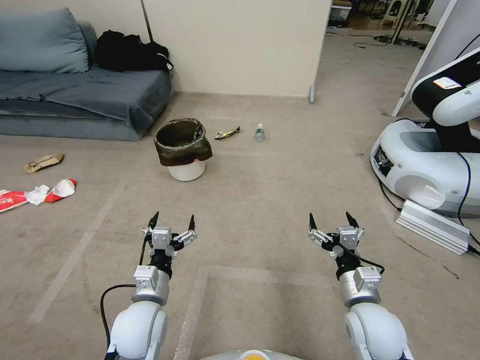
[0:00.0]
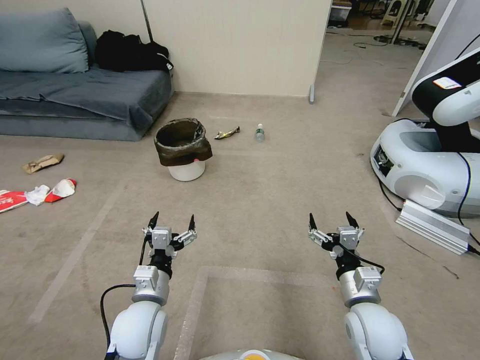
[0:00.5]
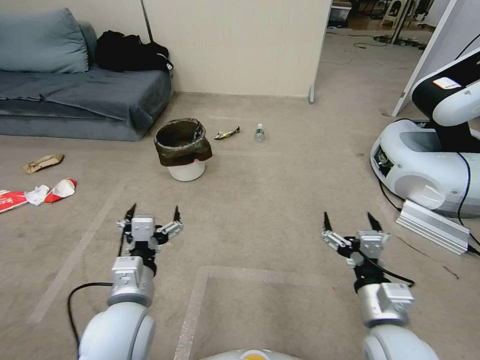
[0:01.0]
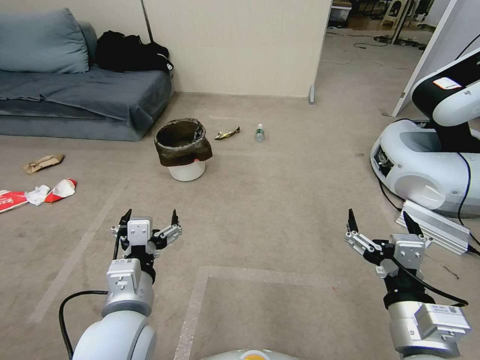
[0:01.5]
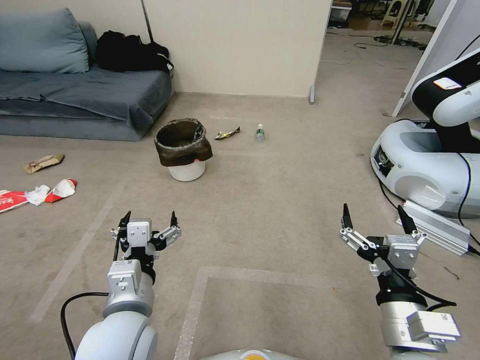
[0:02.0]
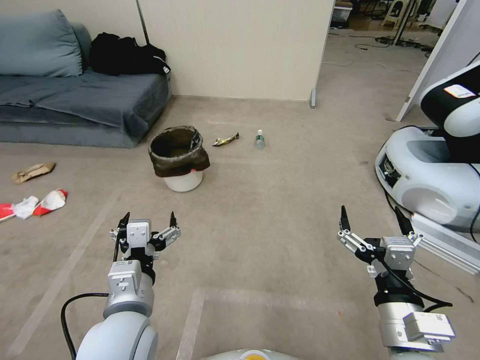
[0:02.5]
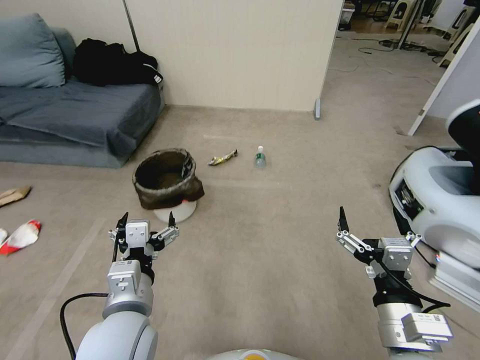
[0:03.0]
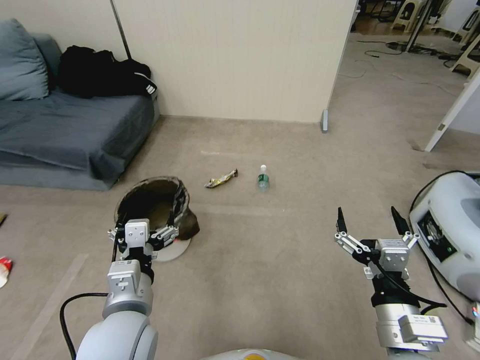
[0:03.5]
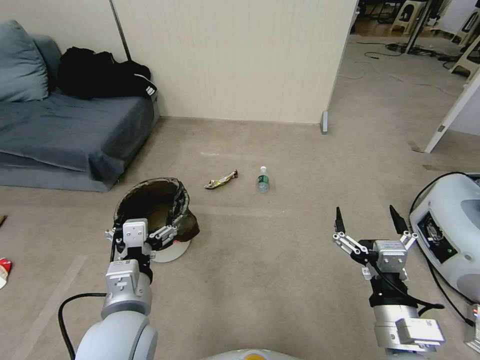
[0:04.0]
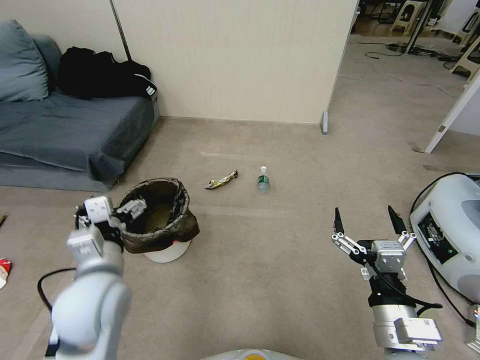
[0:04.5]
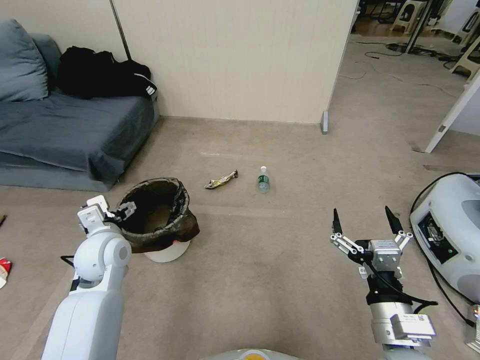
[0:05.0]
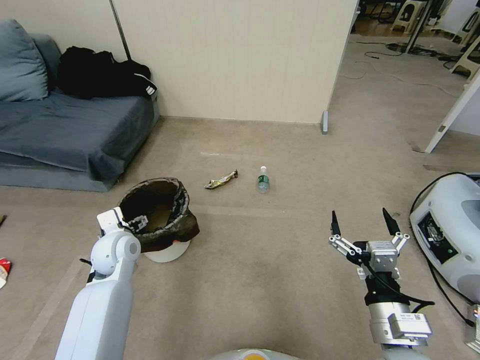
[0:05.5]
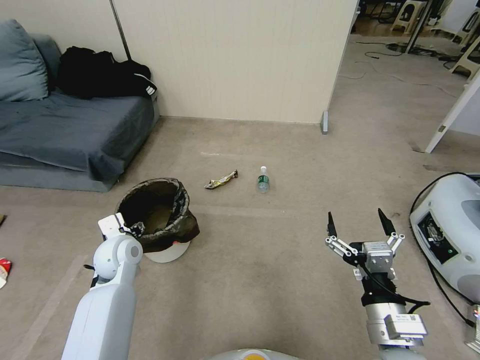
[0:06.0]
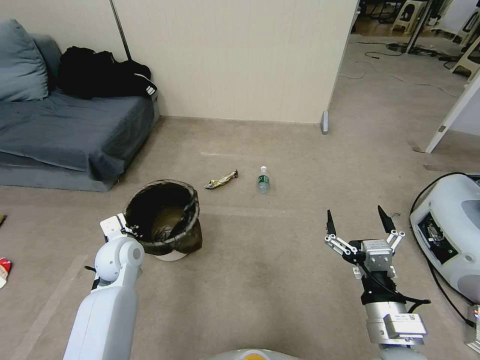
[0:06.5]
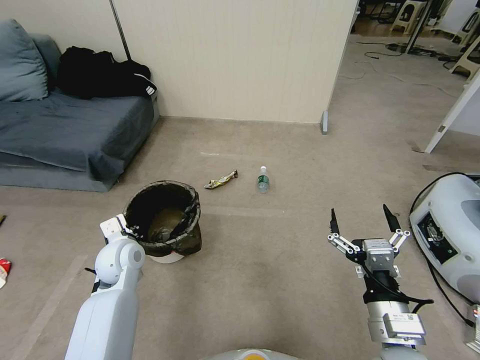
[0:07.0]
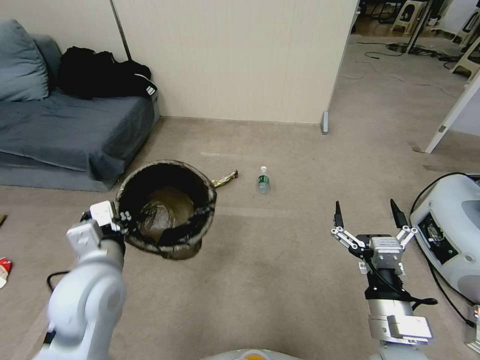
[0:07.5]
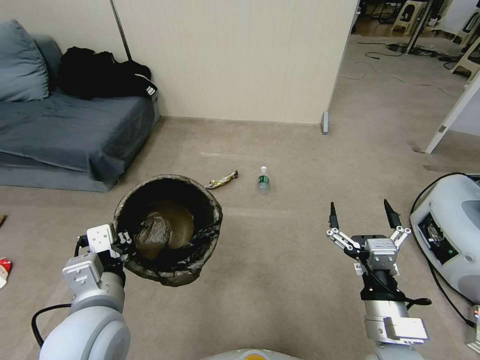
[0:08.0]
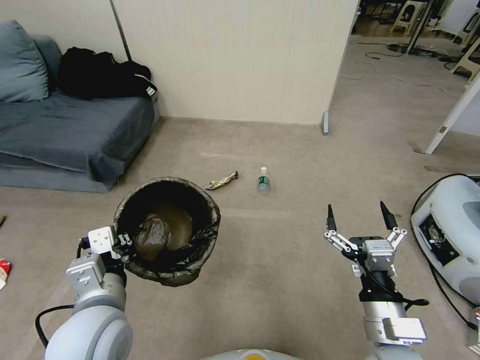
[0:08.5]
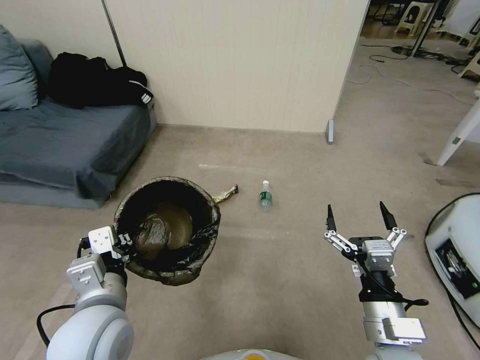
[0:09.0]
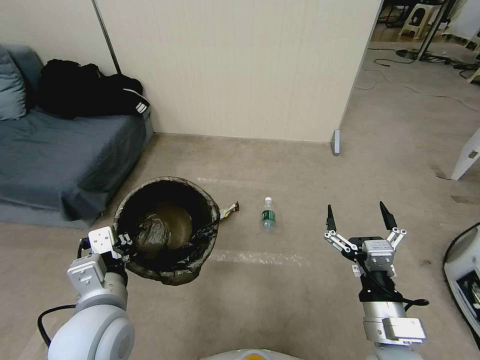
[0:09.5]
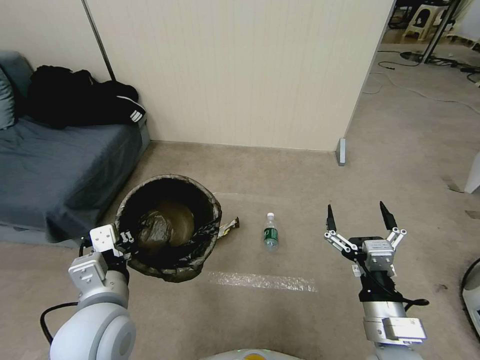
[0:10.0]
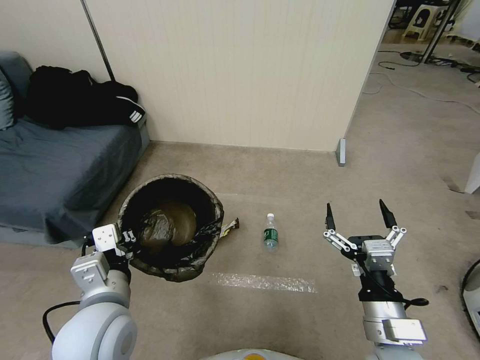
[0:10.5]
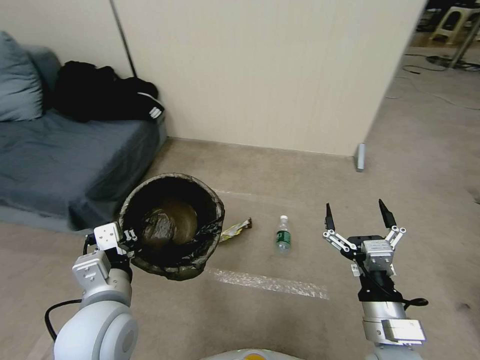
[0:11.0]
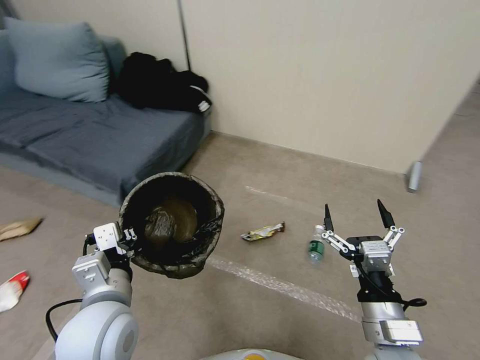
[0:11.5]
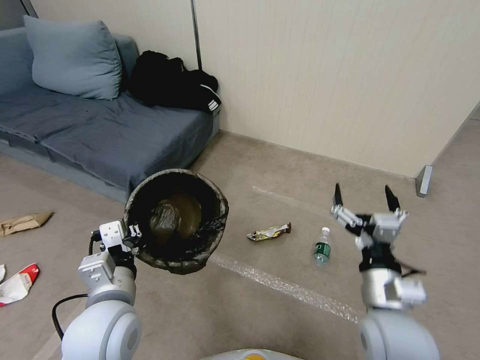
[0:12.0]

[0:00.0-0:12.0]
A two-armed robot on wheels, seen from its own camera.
Task of the whole recording: Pick up the trash bin, then pick up the garbage from the floor and place it into the trash bin.
0:04.0 to 0:06.0: The left gripper shifts approximately 25 cm forward, to the left and downward.
0:06.0 to 0:08.0: The left gripper shifts roughly 25 cm backward, upward and to the right, and closes up.
0:10.0 to 0:12.0: The right gripper ends up about 5 cm from where it was.

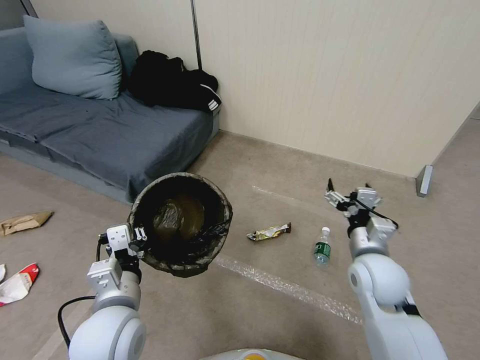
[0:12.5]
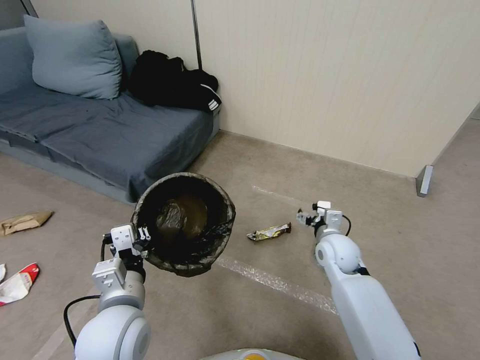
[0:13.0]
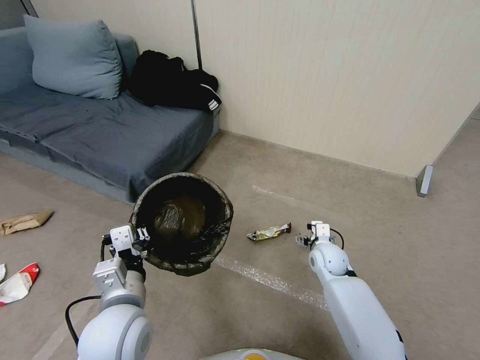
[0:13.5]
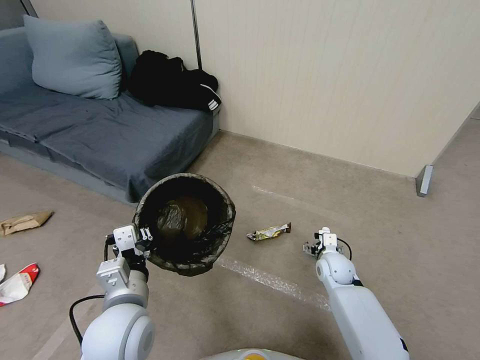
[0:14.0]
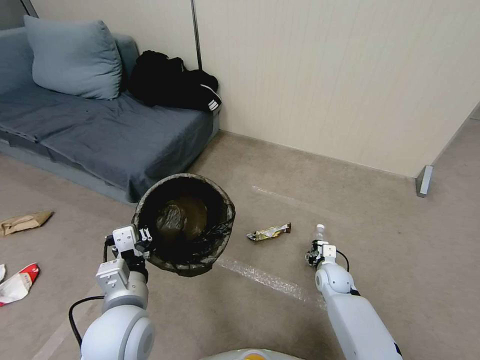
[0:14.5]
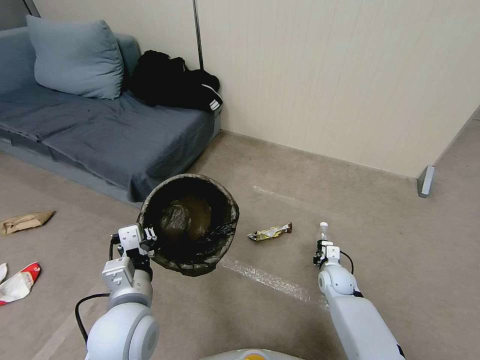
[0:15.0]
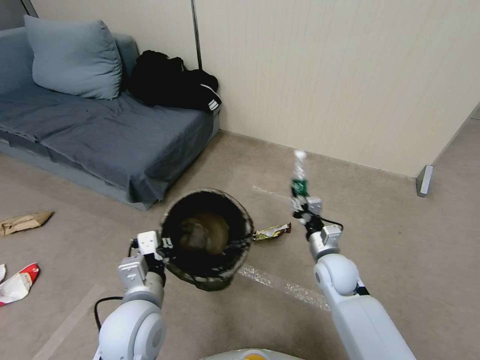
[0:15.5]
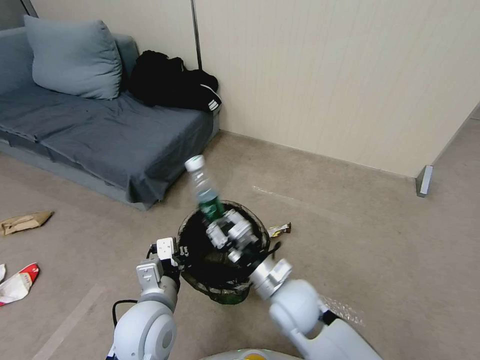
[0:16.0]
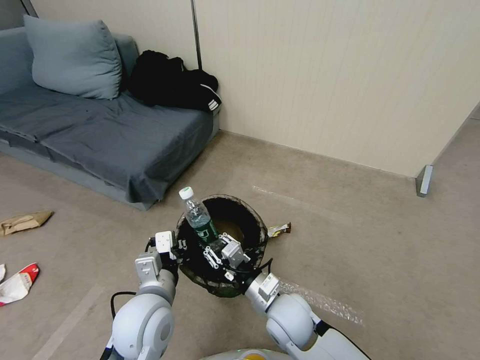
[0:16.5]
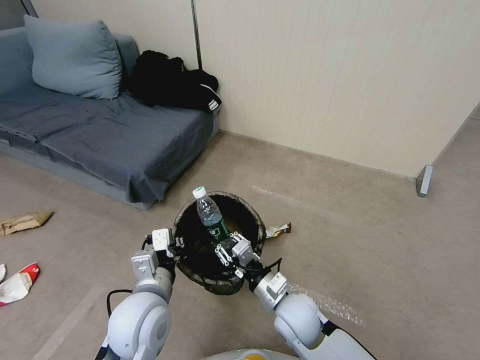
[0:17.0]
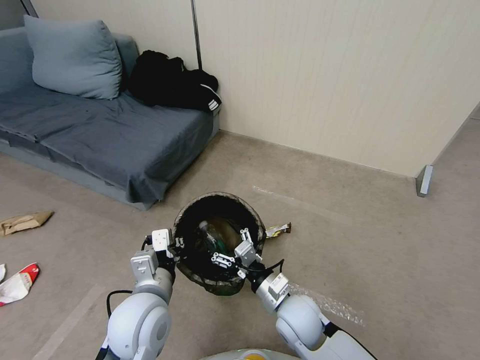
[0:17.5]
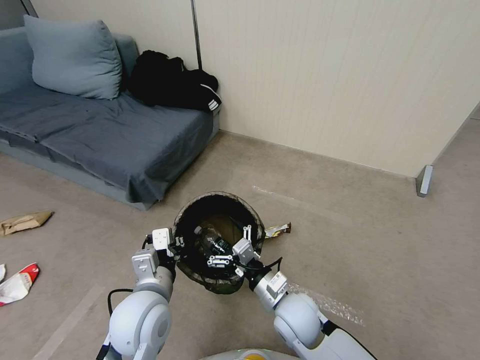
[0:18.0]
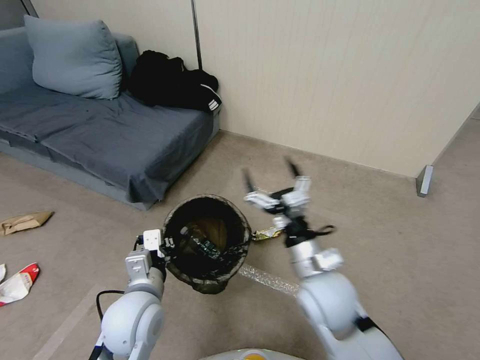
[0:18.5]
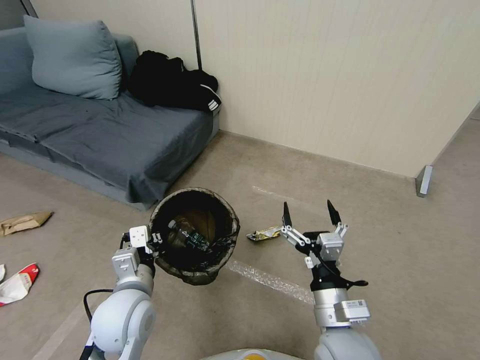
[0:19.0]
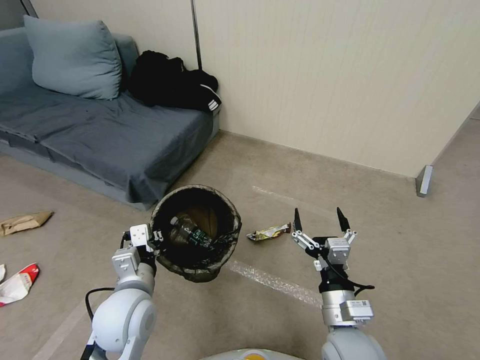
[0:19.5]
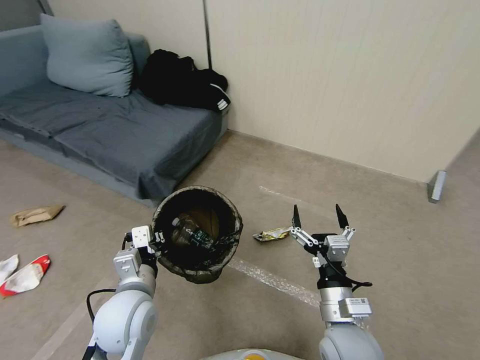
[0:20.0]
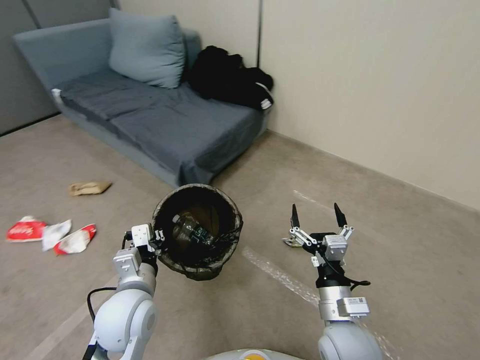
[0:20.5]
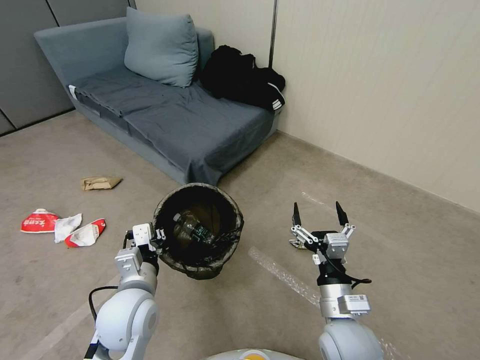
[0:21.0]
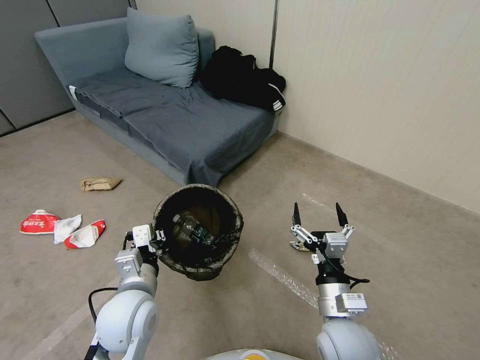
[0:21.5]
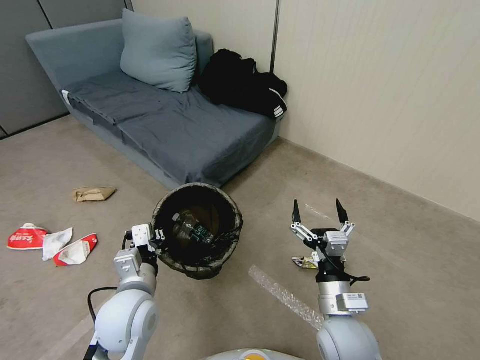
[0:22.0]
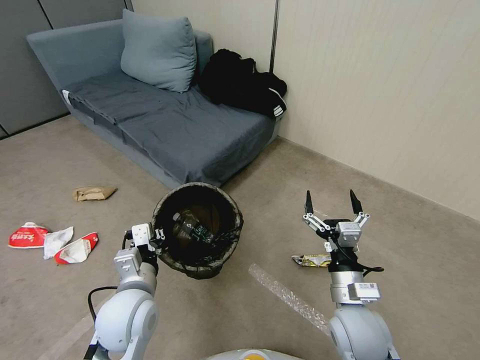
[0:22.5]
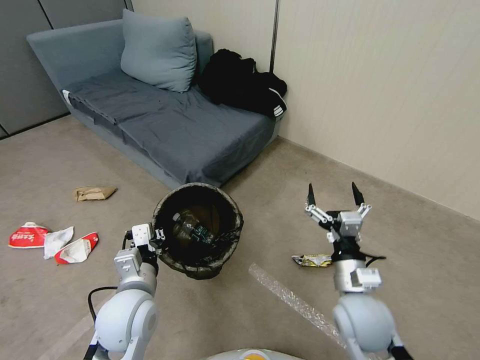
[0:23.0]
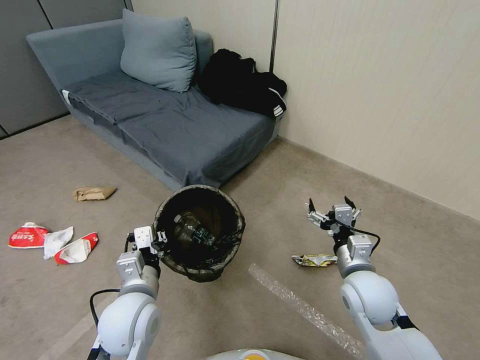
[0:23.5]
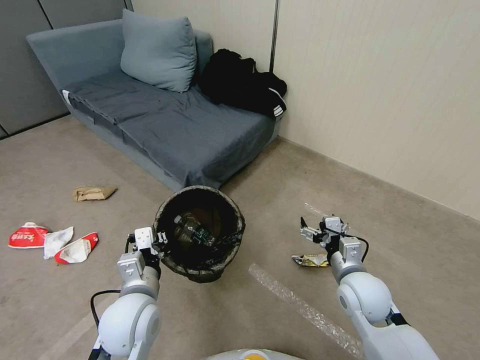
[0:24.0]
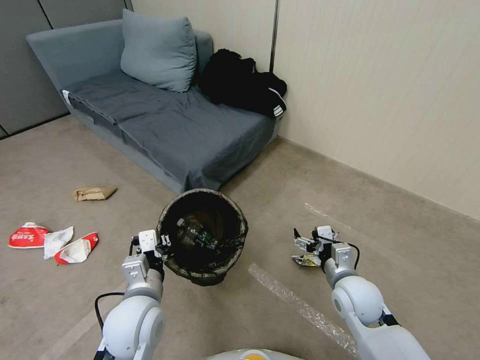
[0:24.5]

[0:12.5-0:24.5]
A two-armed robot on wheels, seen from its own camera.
Task of the whole recording: Pick up the trash bin, then pick up the garbage from the floor and place it into the trash bin.
0:12.5 to 0:14.5: The right gripper shifts approximately 20 cm downward.
0:14.5 to 0:16.5: The right gripper shifts approximately 25 cm to the left, upward and backward, and closes up.
0:16.5 to 0:18.5: The right gripper moves upward, some 10 cm, and opens.
0:18.5 to 0:20.5: The right gripper goes some 10 cm backward and downward.
0:20.5 to 0:22.5: The grippers make only small movements.
0:22.5 to 0:24.5: The right gripper heads forward, covering about 5 cm.

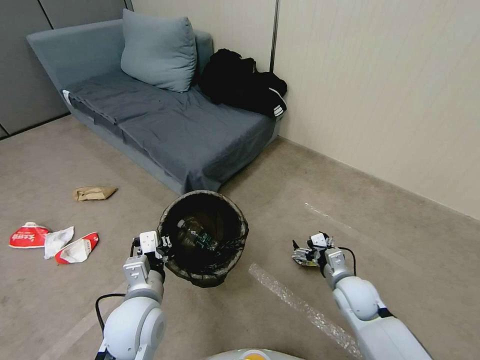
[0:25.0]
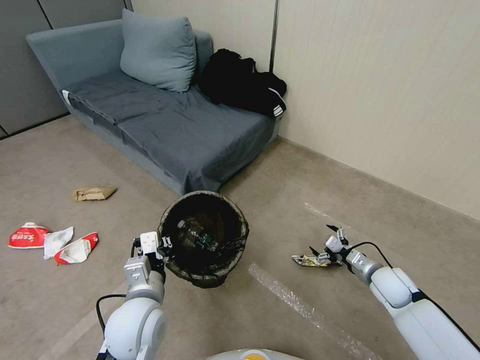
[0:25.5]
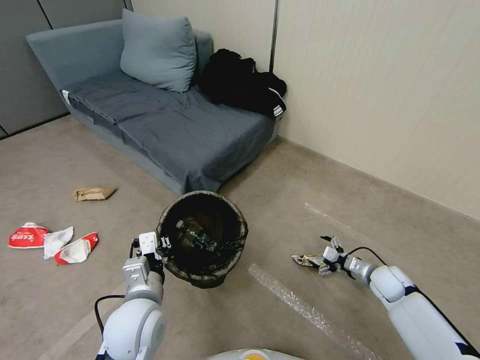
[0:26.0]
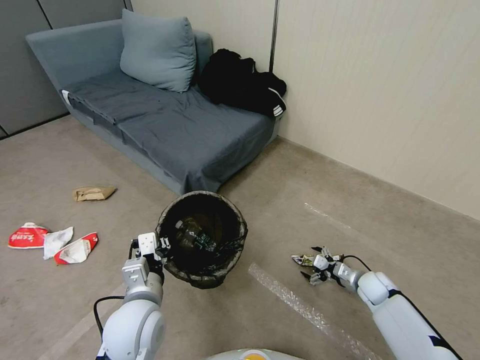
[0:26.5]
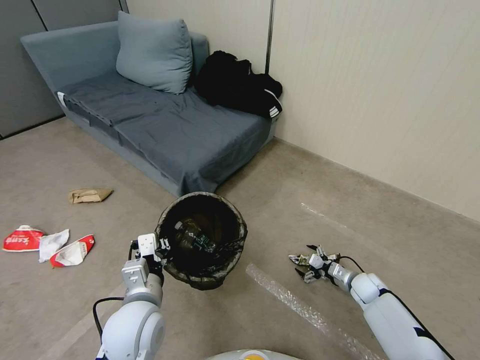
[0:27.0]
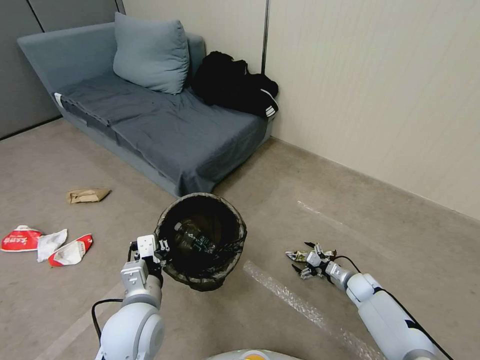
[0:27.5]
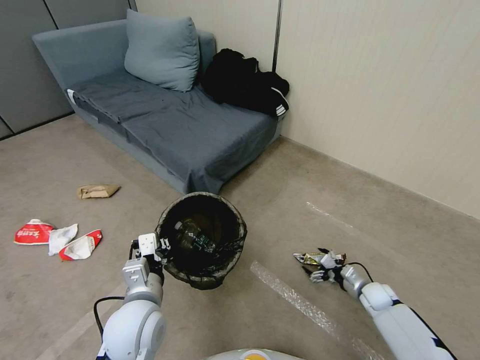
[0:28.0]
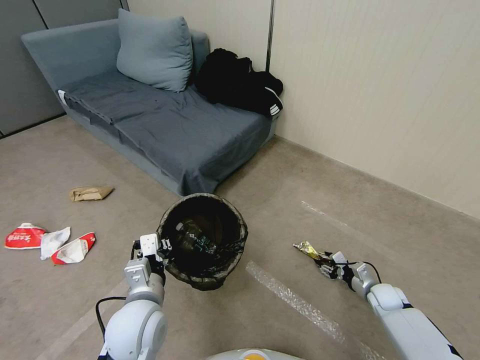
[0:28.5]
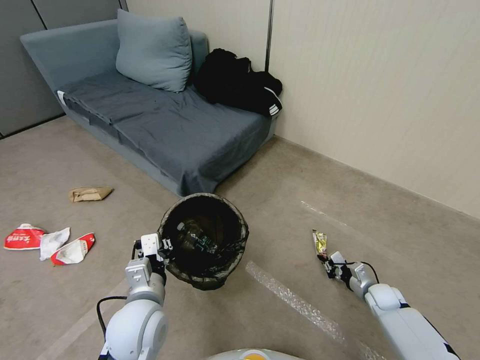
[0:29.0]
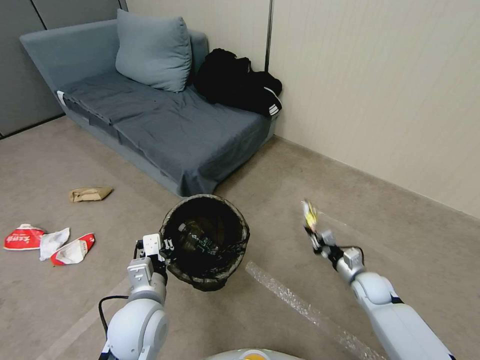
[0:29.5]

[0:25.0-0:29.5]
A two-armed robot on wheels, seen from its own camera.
Task of the whole recording: Pick up the trash bin, then pick up the garbage from the floor and place it into the trash bin.
0:25.0 to 0:27.0: The right gripper travels downward, to the right and forward by approximately 20 cm.
0:27.0 to 0:29.5: The right gripper moves approximately 5 cm, and closes up.
